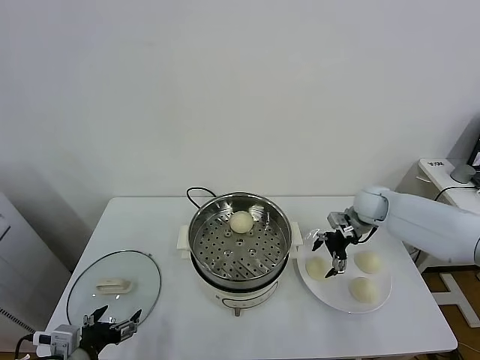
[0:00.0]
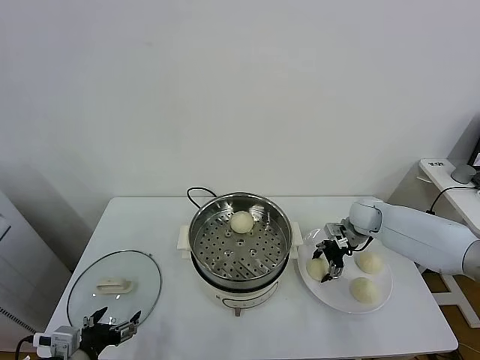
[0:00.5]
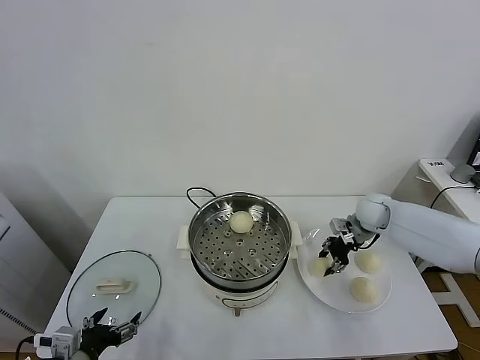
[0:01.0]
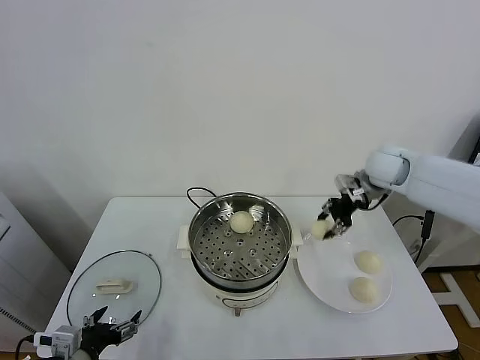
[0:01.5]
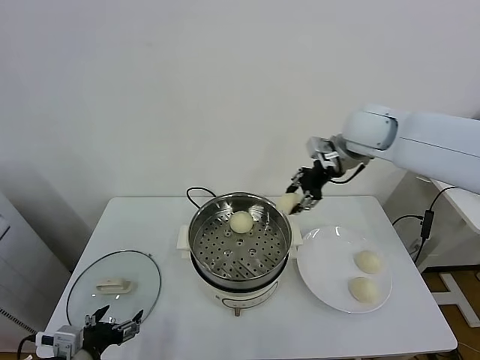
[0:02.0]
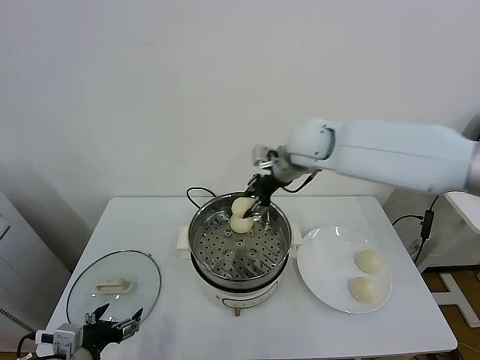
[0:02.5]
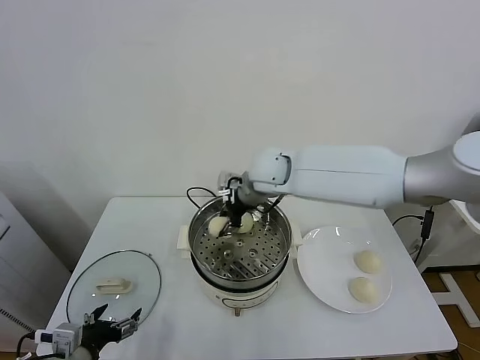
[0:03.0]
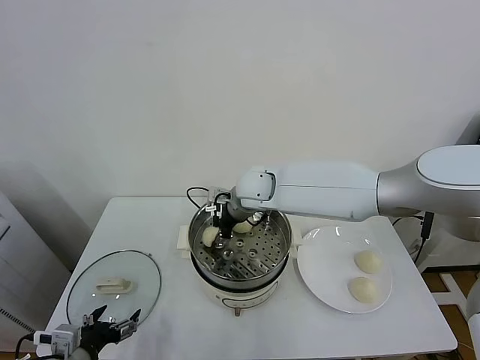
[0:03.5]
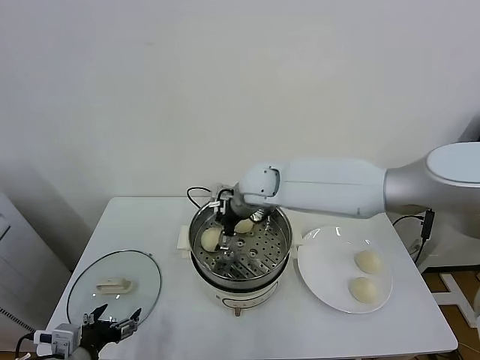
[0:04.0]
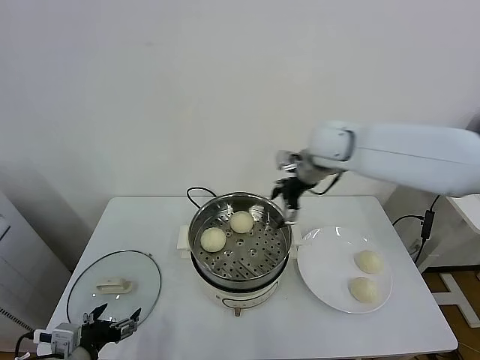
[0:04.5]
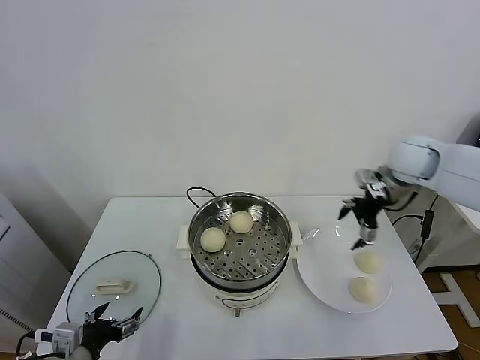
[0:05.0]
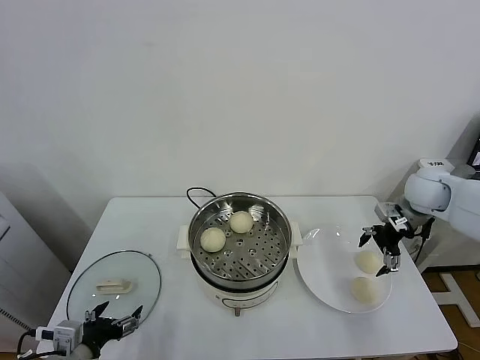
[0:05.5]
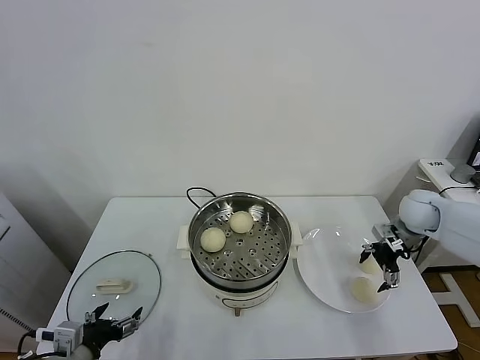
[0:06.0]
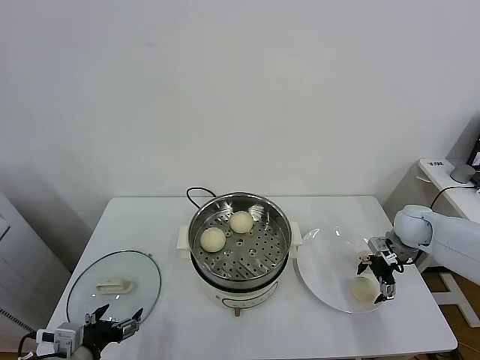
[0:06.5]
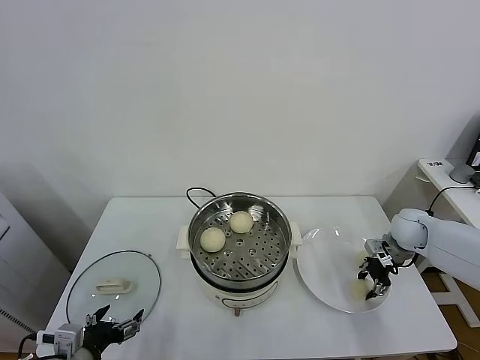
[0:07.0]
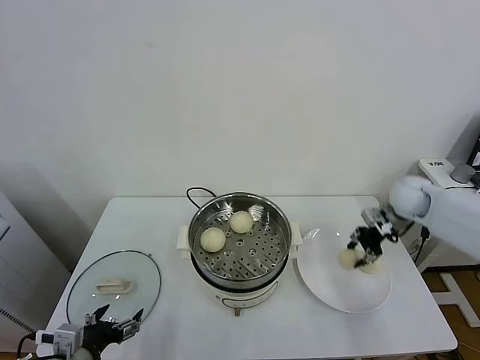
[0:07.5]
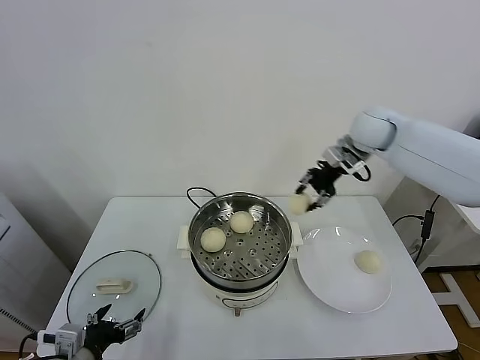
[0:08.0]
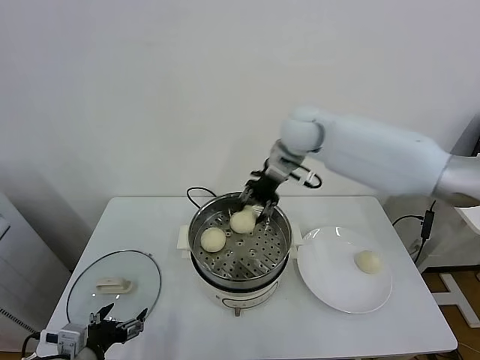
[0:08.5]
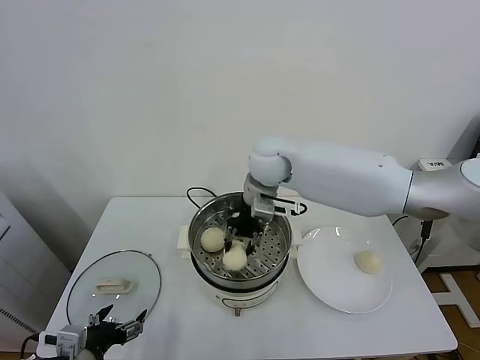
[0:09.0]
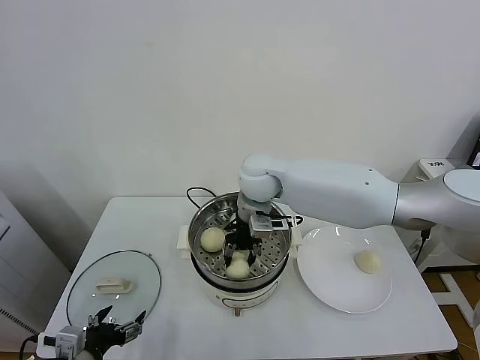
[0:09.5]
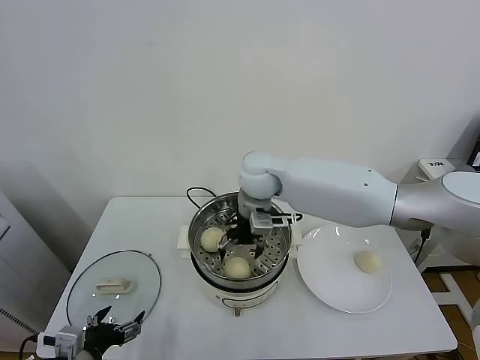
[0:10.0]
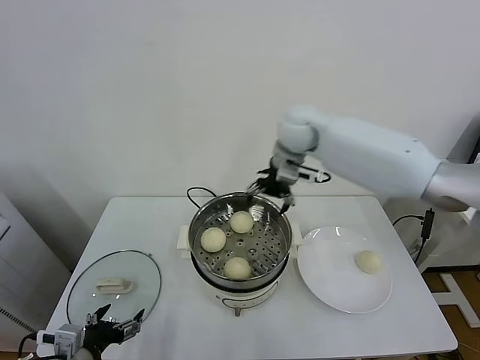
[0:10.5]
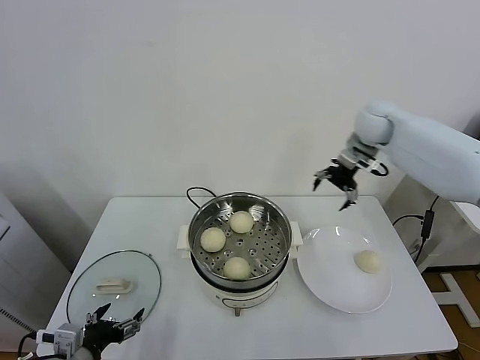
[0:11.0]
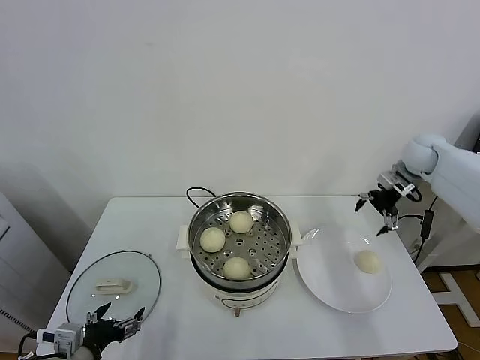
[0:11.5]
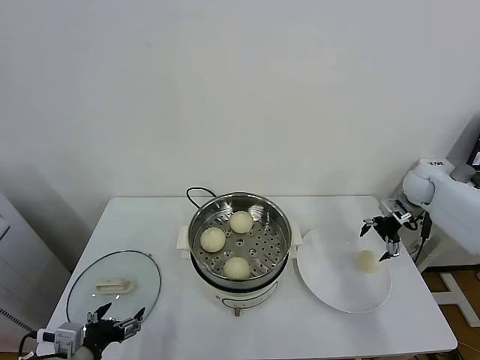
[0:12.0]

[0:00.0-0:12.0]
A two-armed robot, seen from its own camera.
Task of the whole recording: take steamed baozi put them in steamer.
Step, 0:01.0 to 0:03.5: Place the baozi on the steamer with right gripper.
Step, 0:04.0 to 0:06.5: Grasp the baozi in the plate with right gripper.
Step, 0:07.5 to 0:09.5: Place the baozi on the steamer with right gripper.
0:00.0 to 0:02.0: The right gripper moves upward and to the left, approximately 25 cm, and closes.
0:02.0 to 0:04.0: The right gripper heads to the left and downward, covering about 20 cm, and opens up.
0:04.0 to 0:06.0: The right gripper heads to the right, covering approximately 35 cm.
0:06.0 to 0:08.0: The right gripper heads upward, to the left and forward, covering approximately 25 cm, and closes up.
0:08.0 to 0:10.0: The right gripper travels to the left by approximately 20 cm, and opens up.
0:10.0 to 0:12.0: The right gripper is displaced to the right by about 40 cm.

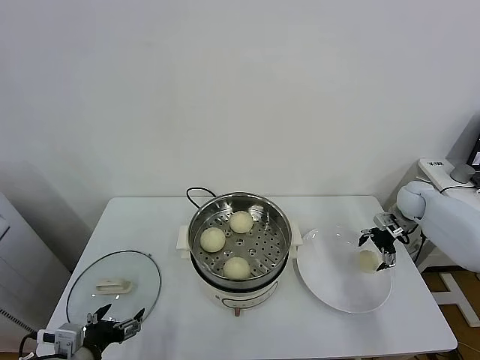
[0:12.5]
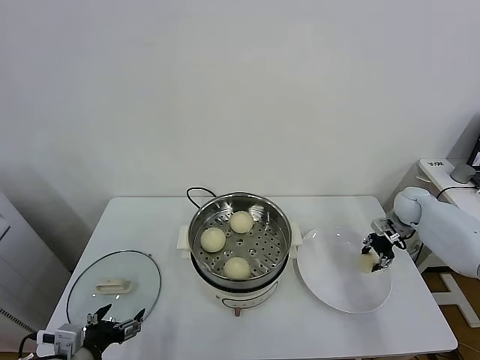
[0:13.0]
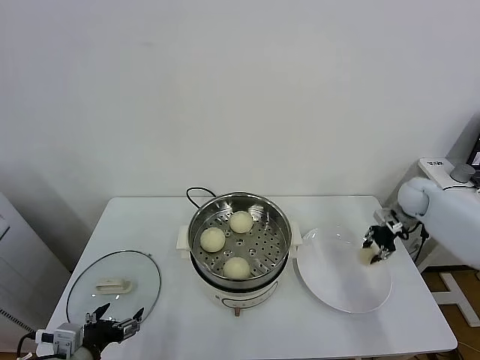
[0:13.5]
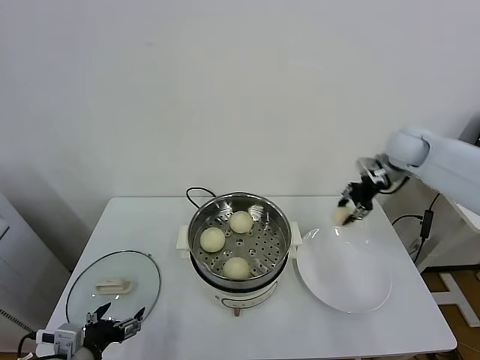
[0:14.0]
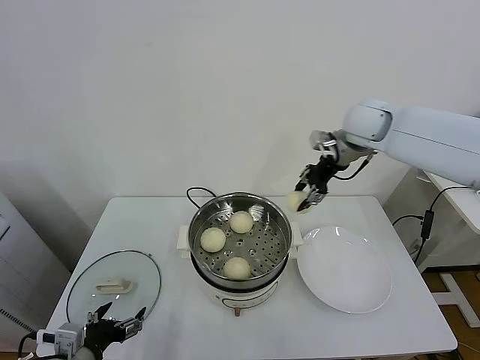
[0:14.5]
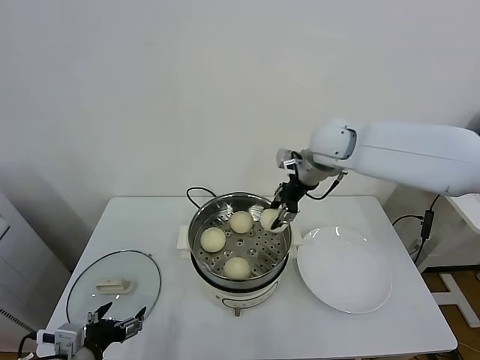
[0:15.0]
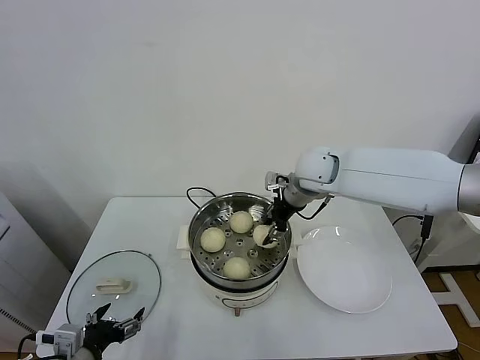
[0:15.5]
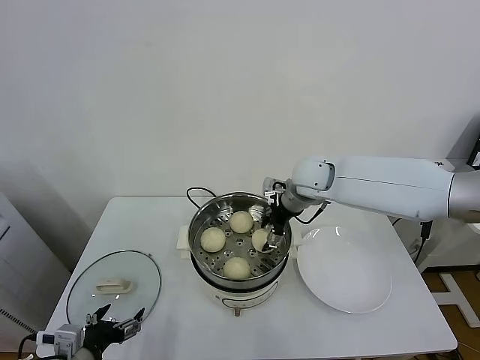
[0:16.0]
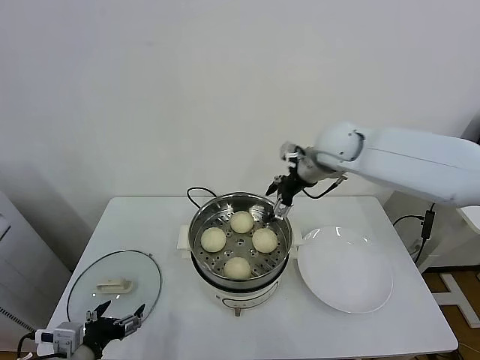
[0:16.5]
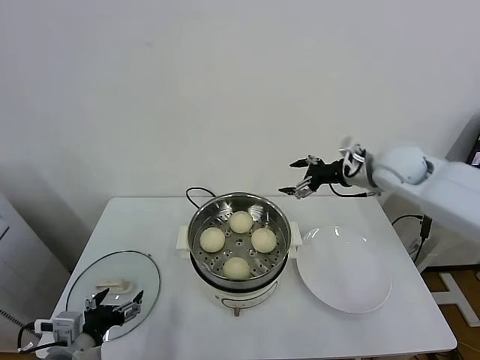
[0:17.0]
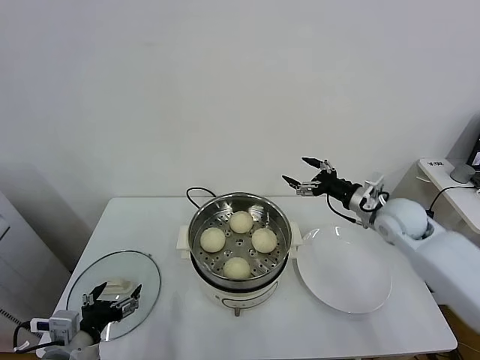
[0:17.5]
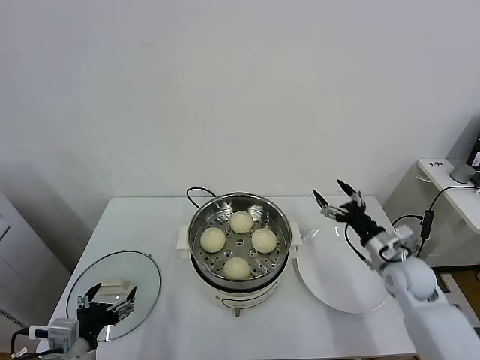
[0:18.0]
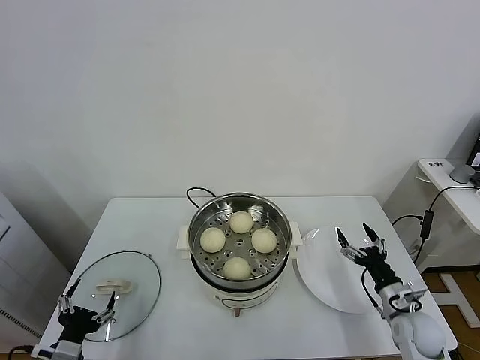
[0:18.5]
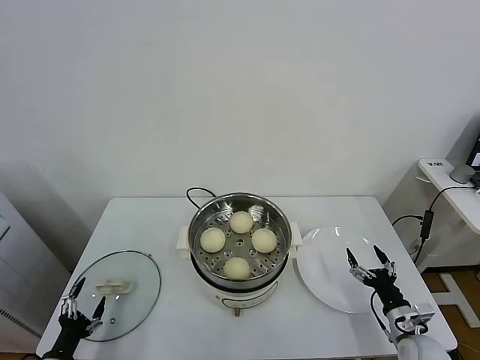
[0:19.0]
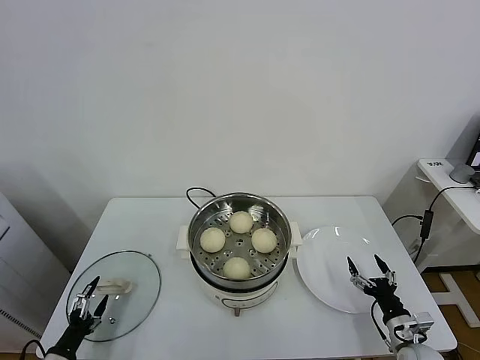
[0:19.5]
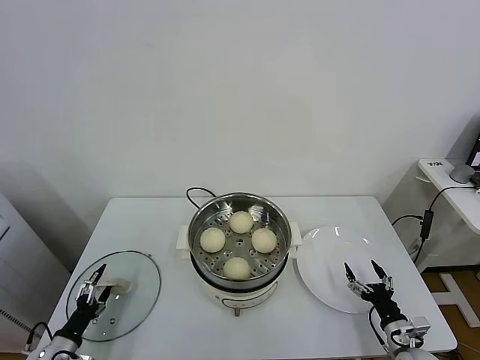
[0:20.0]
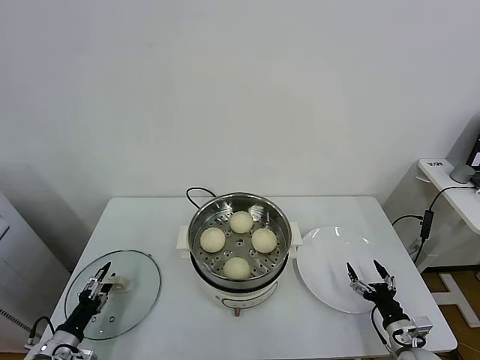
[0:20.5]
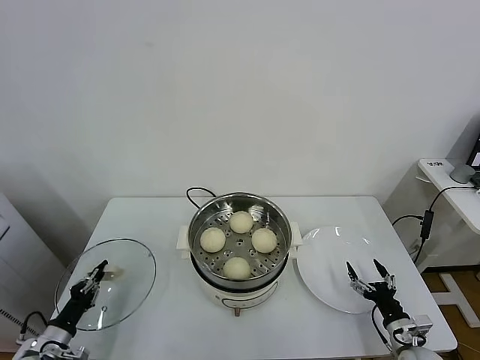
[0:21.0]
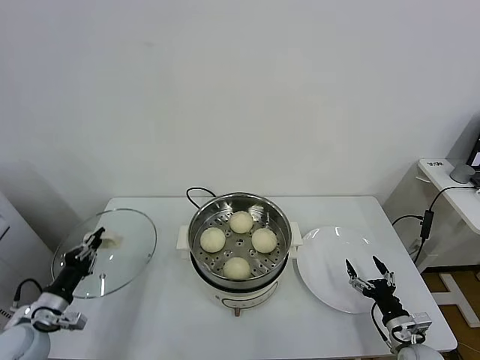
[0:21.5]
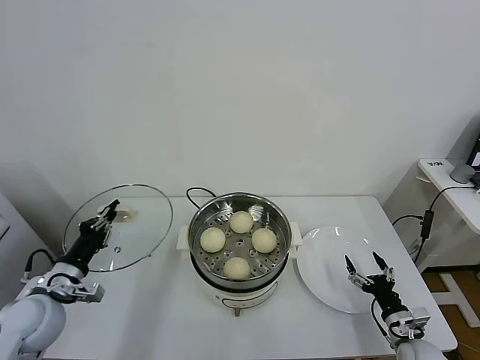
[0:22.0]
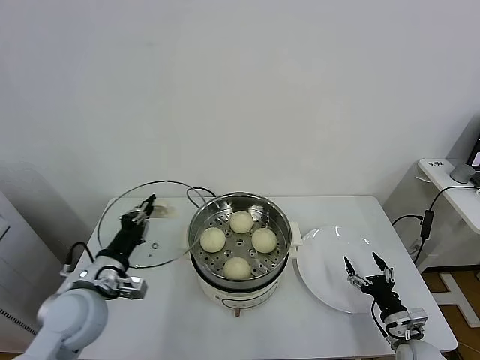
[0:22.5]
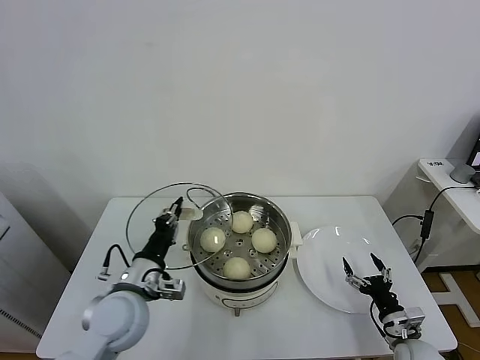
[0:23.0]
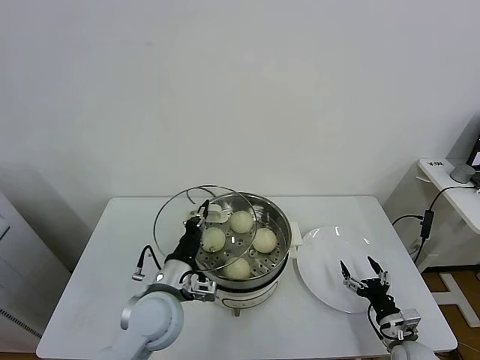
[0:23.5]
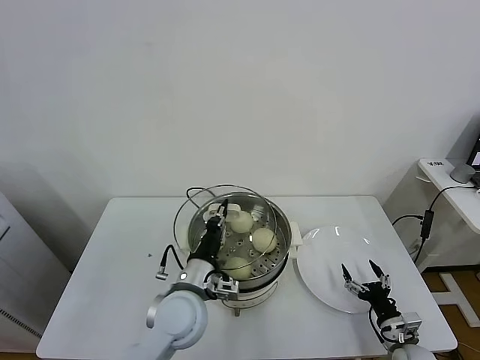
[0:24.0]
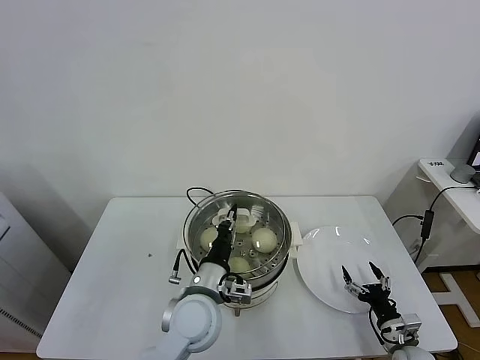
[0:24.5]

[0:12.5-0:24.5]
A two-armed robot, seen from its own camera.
Task of the whole recording: take steamed baozi put them in steamer.
Step, 0:13.0 to 0:16.0: Place the baozi on the steamer with right gripper.
Step, 0:16.5 to 0:21.0: Grasp the pot lid with left gripper.
0:12.5 to 0:14.5: The right gripper goes some 30 cm upward and to the left, and closes.
0:14.5 to 0:16.5: The right gripper moves about 10 cm downward and comes back, and opens up.
0:16.5 to 0:18.5: The left gripper is displaced downward by some 5 cm; the right gripper is displaced downward, backward and to the right by about 50 cm.
0:18.5 to 0:20.5: The left gripper goes roughly 15 cm downward, to the left and forward, while the right gripper is displaced downward and backward by approximately 10 cm.
0:20.5 to 0:22.5: The left gripper travels upward and to the right by approximately 25 cm, and closes.
0:22.5 to 0:24.5: The left gripper heads to the right, covering approximately 20 cm.

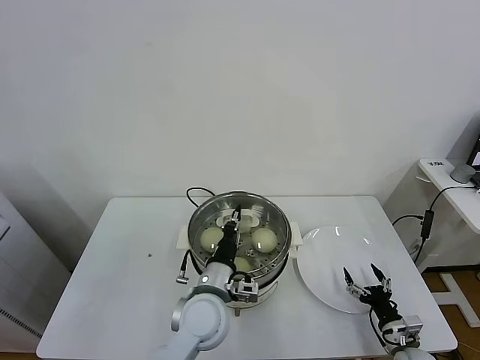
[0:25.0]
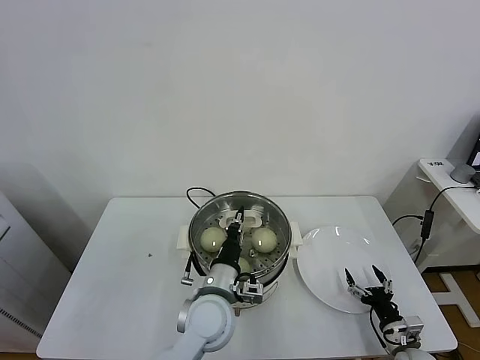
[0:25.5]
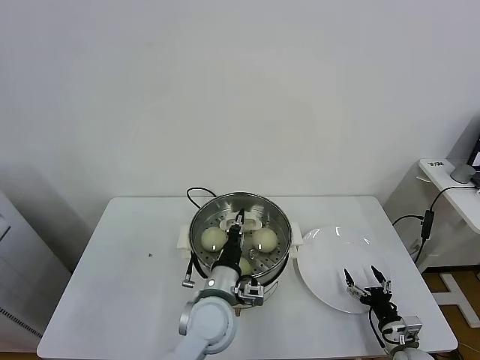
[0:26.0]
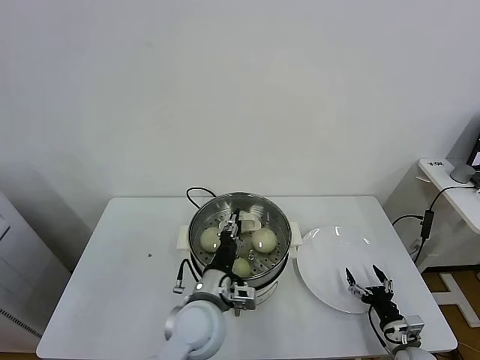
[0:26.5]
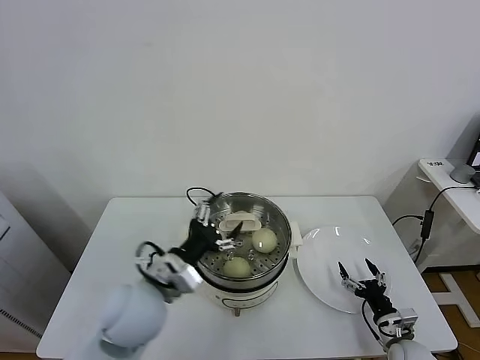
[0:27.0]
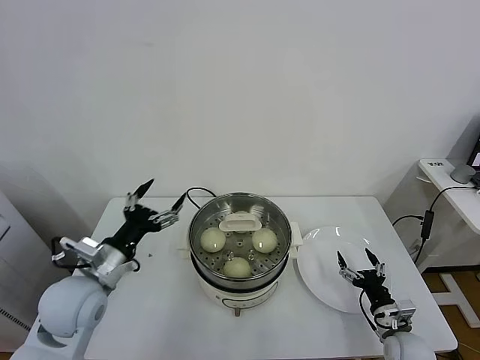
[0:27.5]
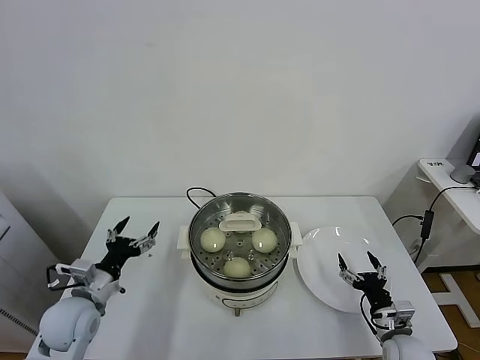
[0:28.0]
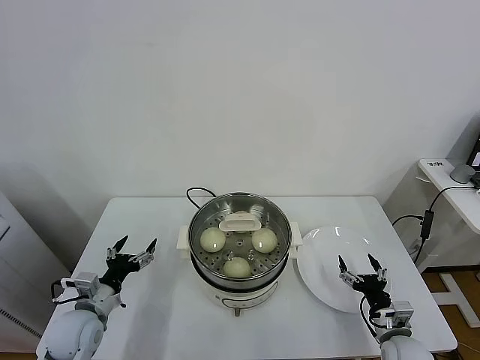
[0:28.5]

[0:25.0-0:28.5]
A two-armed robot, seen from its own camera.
Task of the whole recording: take steamed baozi put them in steamer.
Step, 0:25.0 to 0:27.0: Place the pot lid on the steamer with left gripper.
0:25.0 to 0:27.0: The left gripper heads to the left and upward, covering roughly 10 cm, and opens its fingers.
0:27.0 to 0:28.5: The left gripper heads to the left and downward, covering about 20 cm, while the right gripper ends up about 5 cm from where it was.
